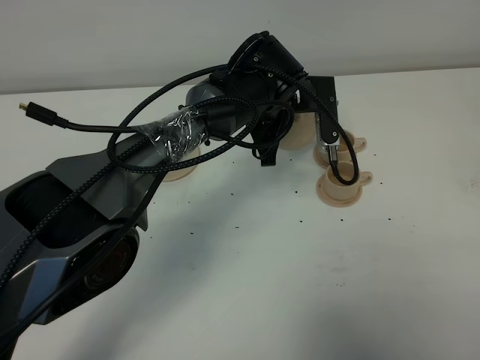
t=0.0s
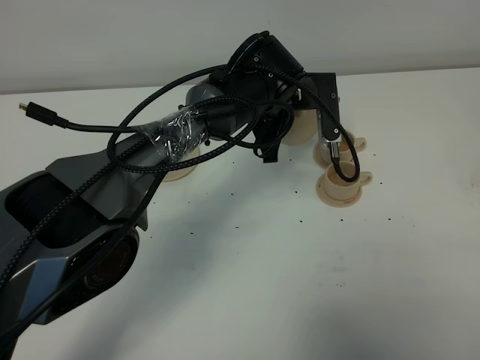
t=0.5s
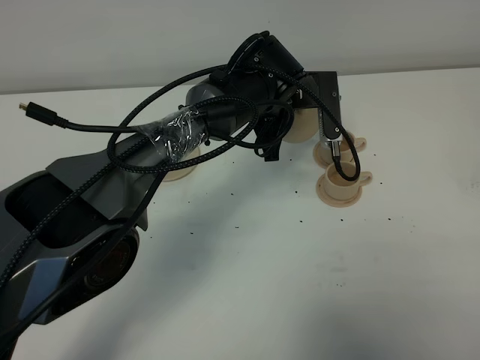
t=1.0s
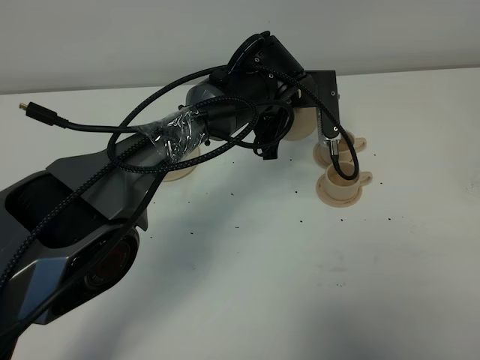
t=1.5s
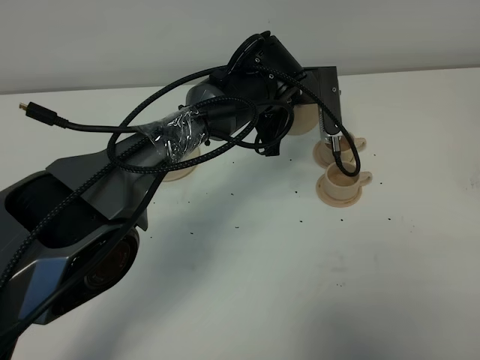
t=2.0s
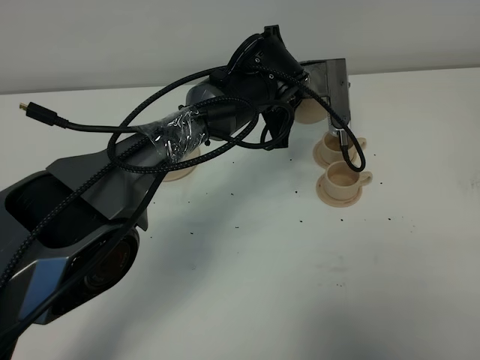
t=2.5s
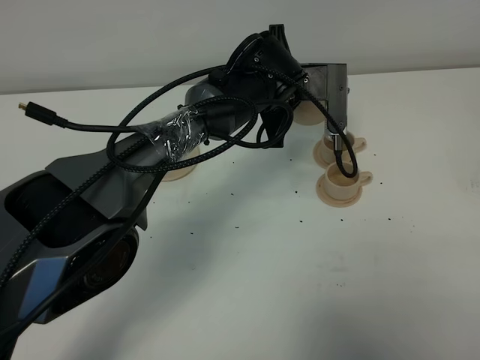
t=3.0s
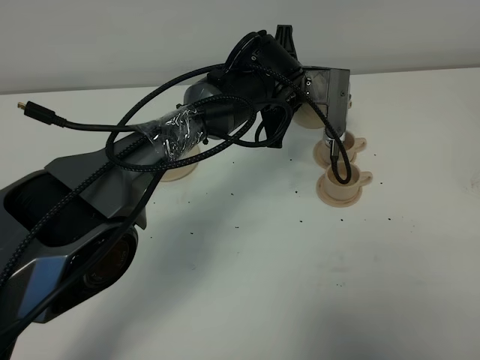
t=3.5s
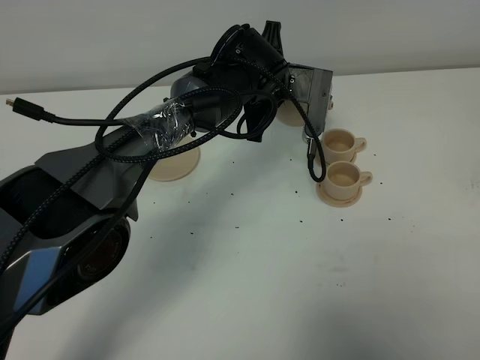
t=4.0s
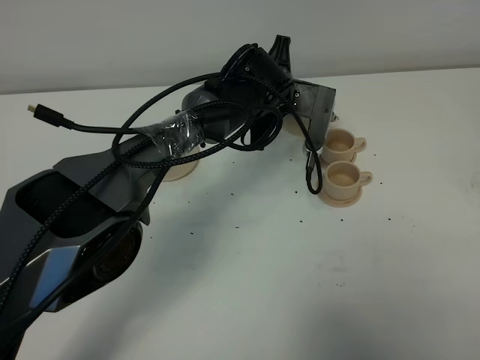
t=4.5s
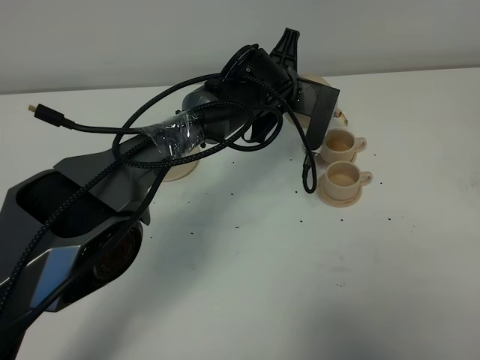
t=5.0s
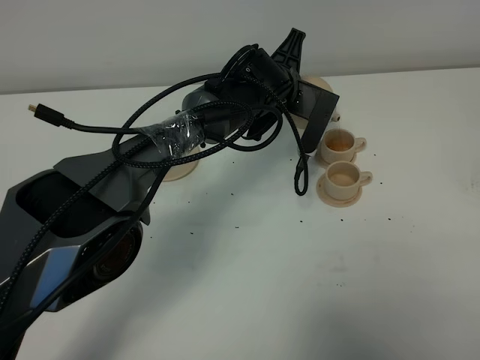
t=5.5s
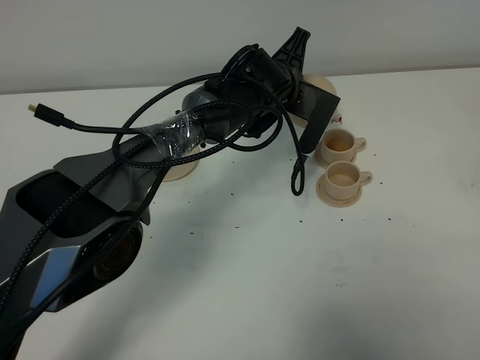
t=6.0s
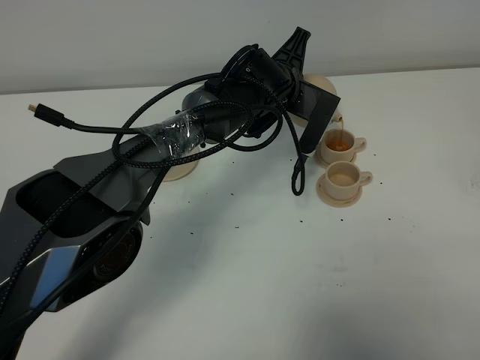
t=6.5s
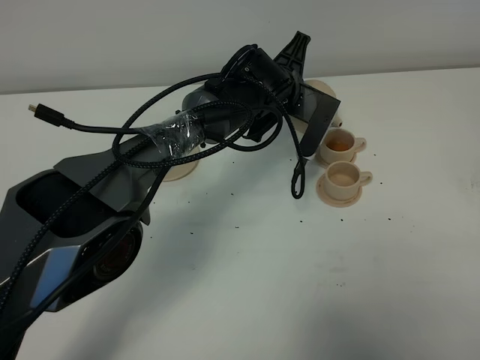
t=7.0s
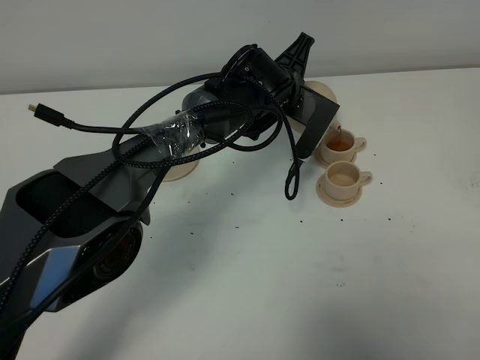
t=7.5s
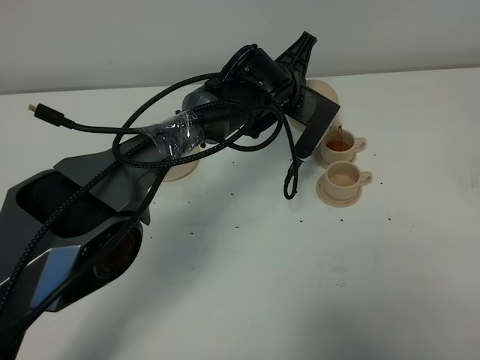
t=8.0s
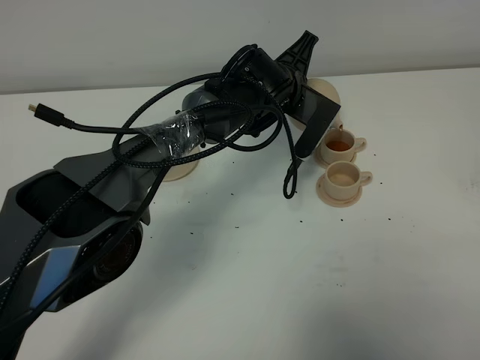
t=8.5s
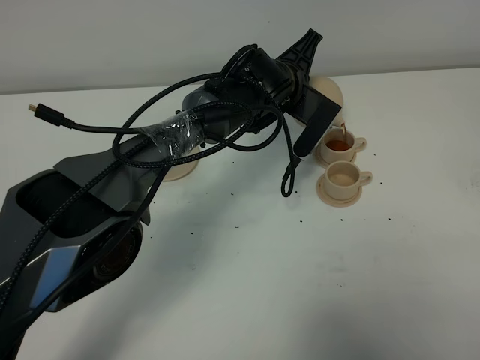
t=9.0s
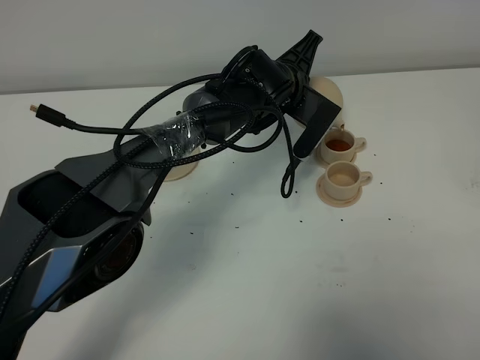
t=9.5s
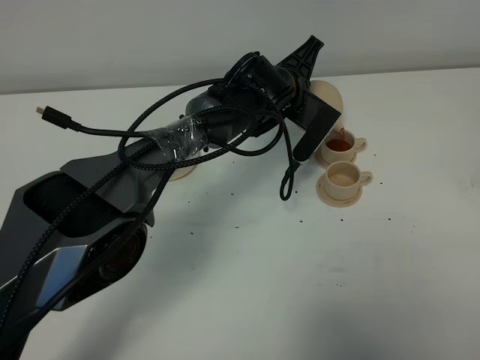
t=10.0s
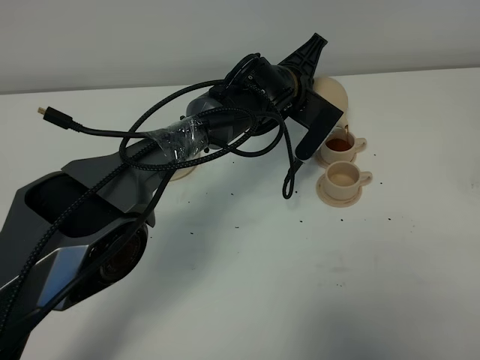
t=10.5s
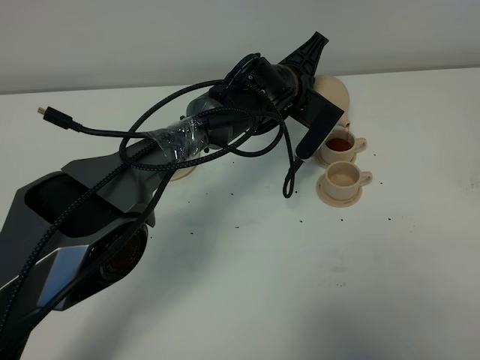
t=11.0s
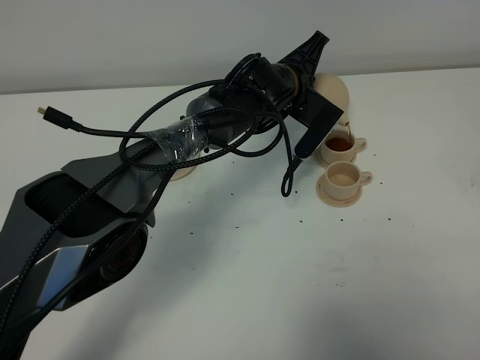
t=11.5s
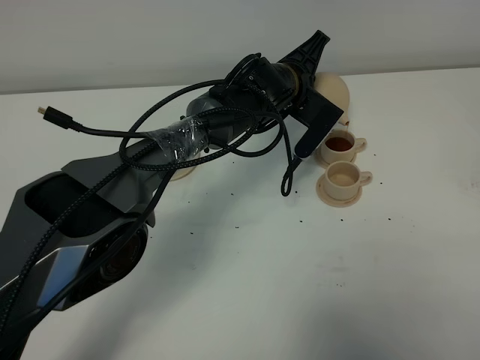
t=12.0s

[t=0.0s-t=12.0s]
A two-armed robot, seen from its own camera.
Task of the whole recording: grasp the brown teapot and pour the tea into the two brown teacups one by one, put the brown teapot back in its original place.
t=0.0s to t=4.0s: The grippers move only a little.
t=4.0s to t=6.0s: The grippers move only a little.
t=6.0s to t=10.0s: The grippers move only a little.
t=10.0s to t=12.0s: Both grippers stay about where they are.

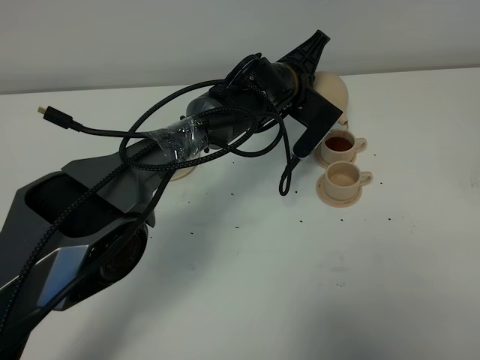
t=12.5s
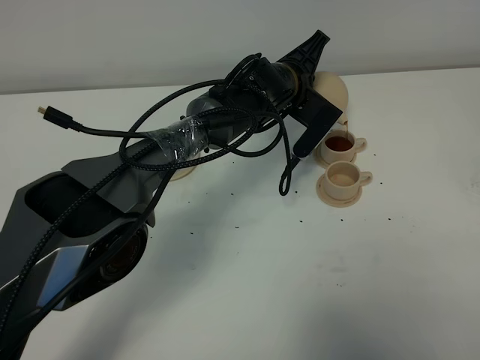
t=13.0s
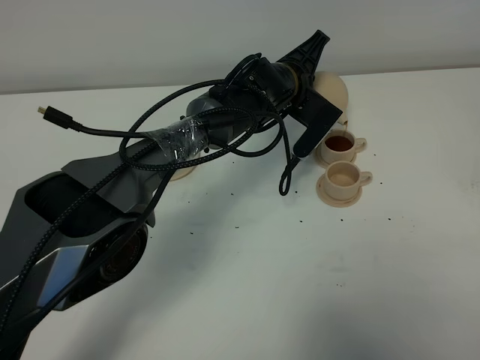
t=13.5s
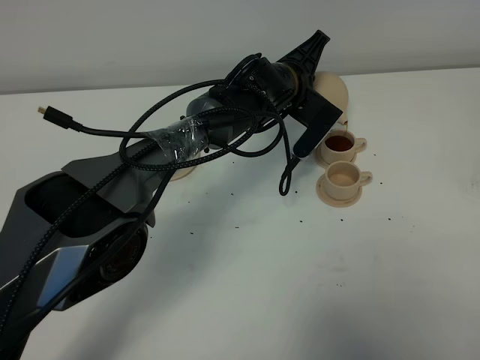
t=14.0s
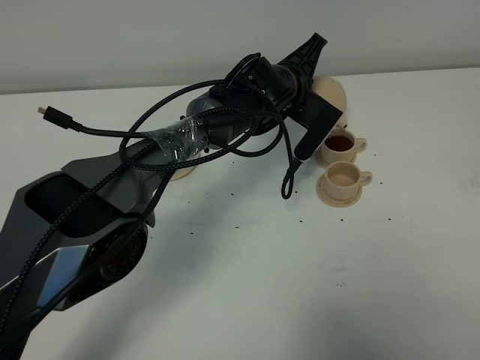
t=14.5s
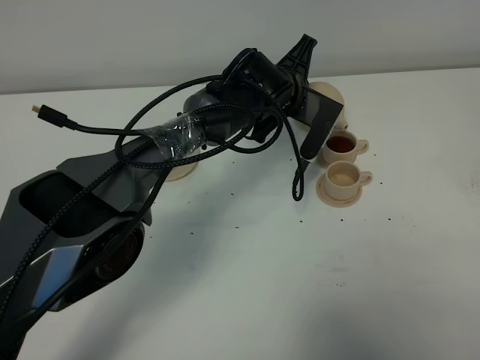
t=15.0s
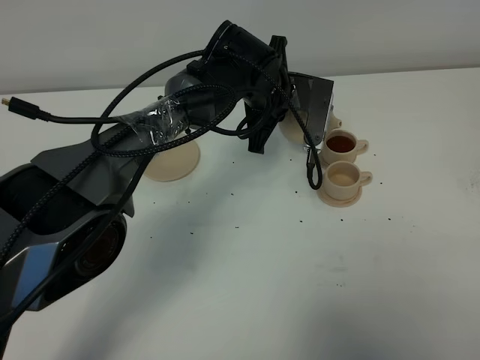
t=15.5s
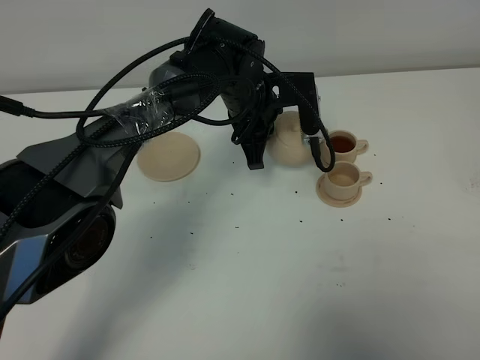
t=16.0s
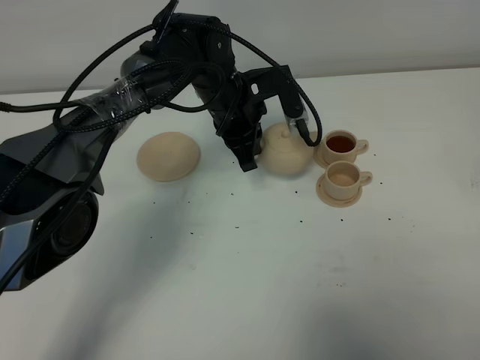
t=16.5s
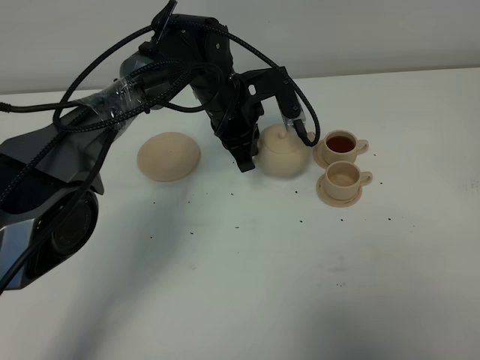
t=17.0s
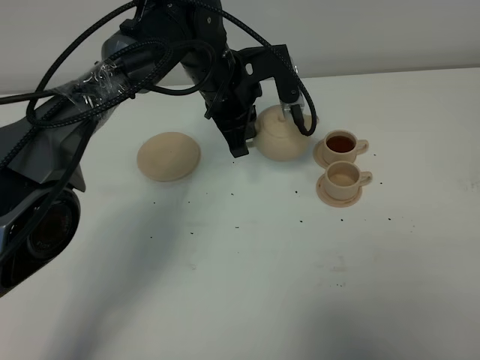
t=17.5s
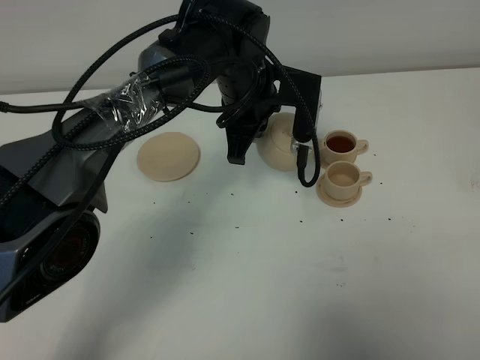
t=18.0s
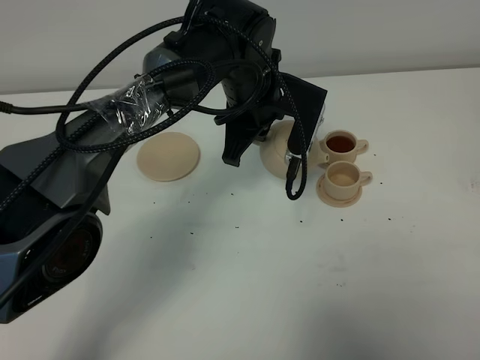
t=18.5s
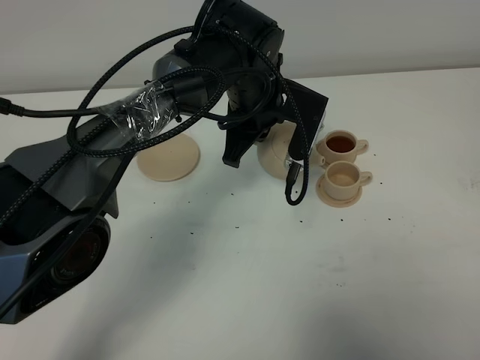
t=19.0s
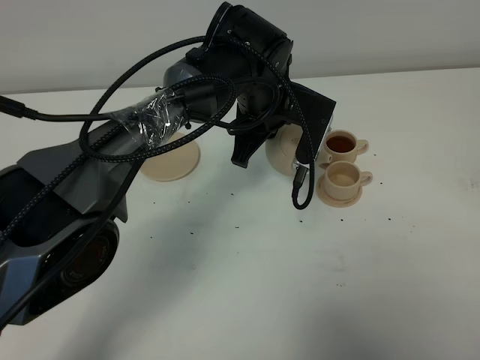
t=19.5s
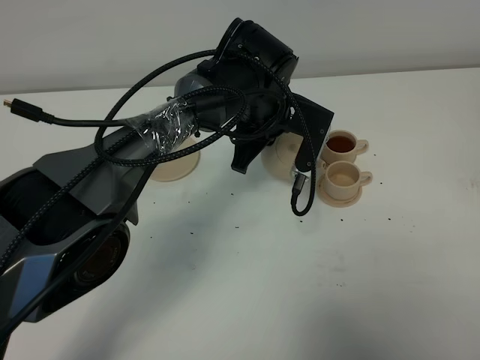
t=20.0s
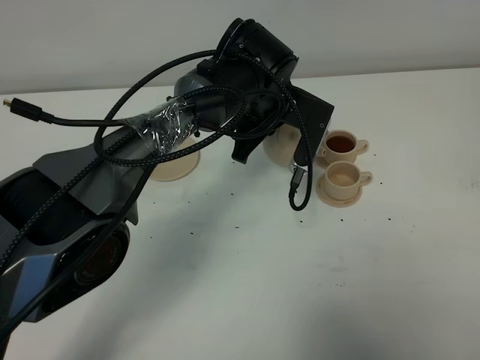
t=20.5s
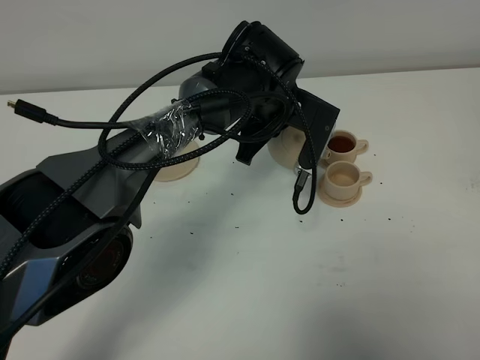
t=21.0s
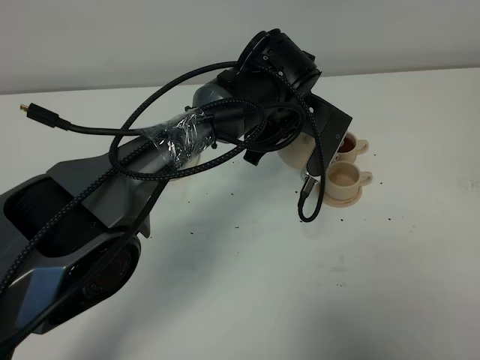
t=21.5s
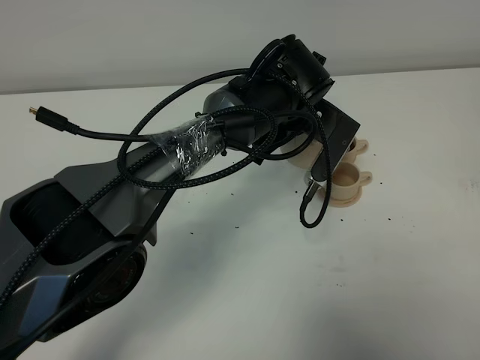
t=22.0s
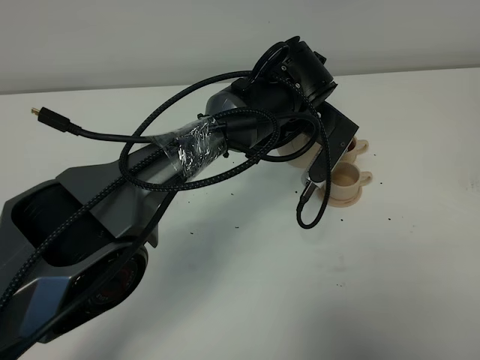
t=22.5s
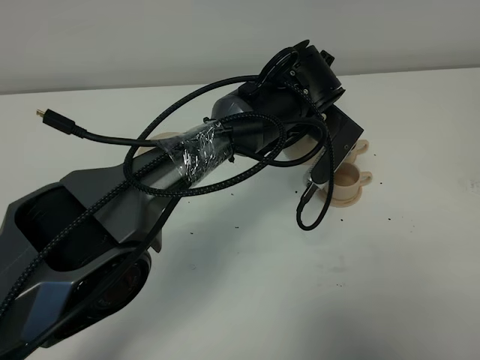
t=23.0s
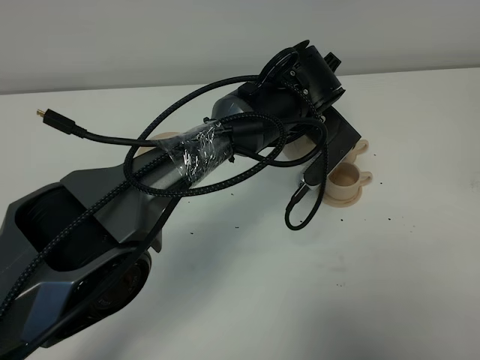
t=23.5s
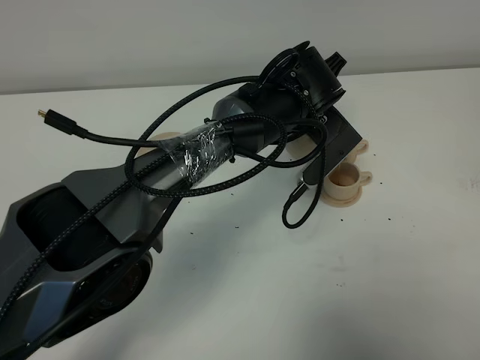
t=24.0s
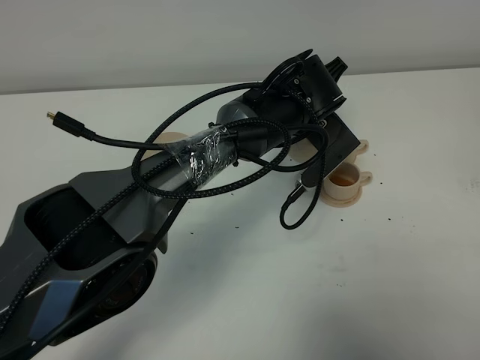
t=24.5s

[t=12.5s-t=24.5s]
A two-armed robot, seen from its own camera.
Task of the whole recording: grasp the brown teapot and pour the tea into the two brown teacups one by one, put the brown teapot back in its original place.
Step, t=12.5s to t=15.0s: Pour tea into the teacup with the left gripper.
t=12.5s to t=14.5s: Both grippers stay put.
t=14.5s to t=16.5s: The left gripper moves to the left, roughly 10 cm.
t=16.5s to t=18.5s: The left gripper shifts by approximately 5 cm.
t=22.5s to t=24.5s: There are only small adjustments of the grippers.

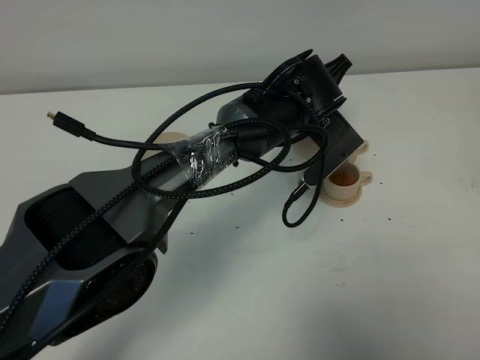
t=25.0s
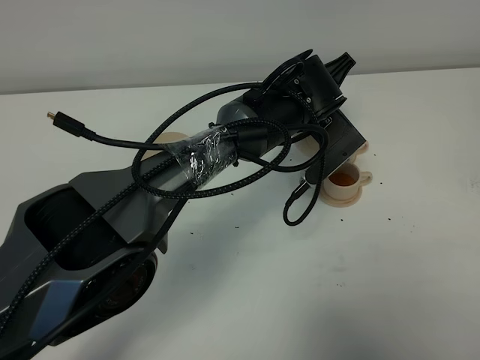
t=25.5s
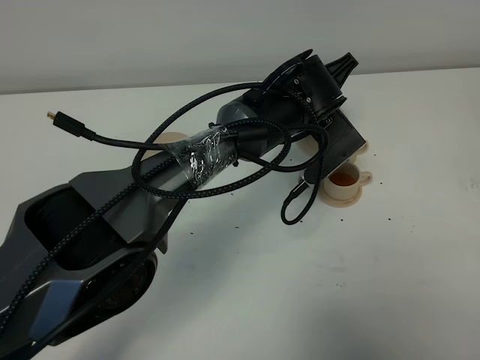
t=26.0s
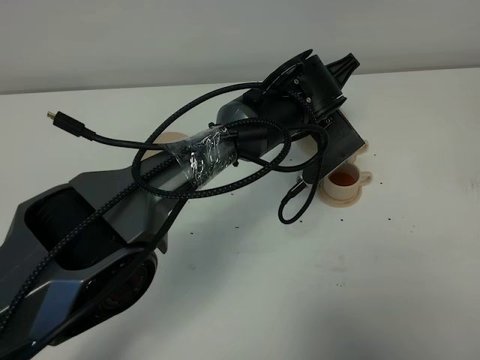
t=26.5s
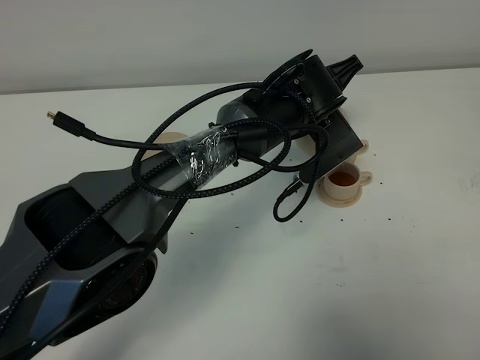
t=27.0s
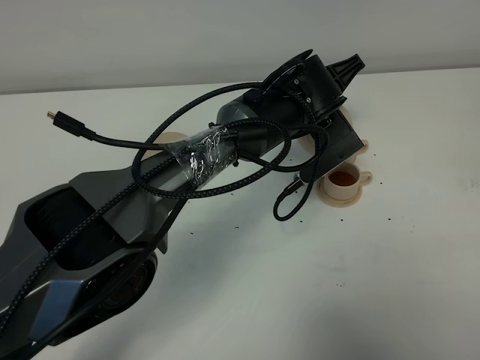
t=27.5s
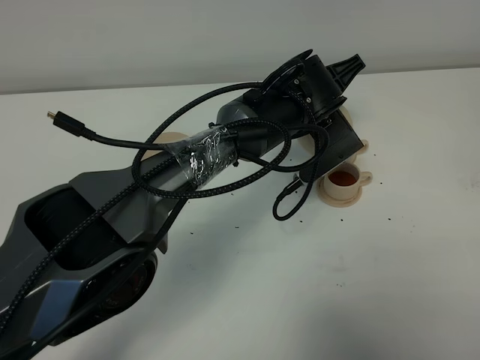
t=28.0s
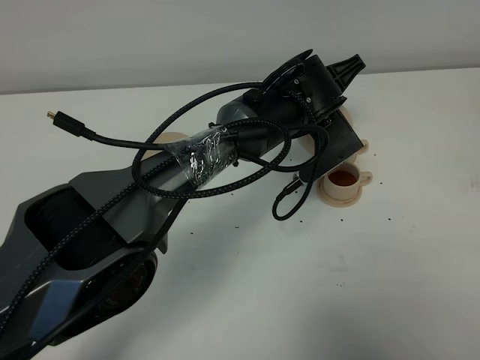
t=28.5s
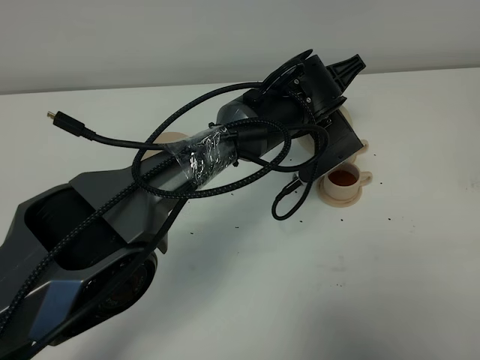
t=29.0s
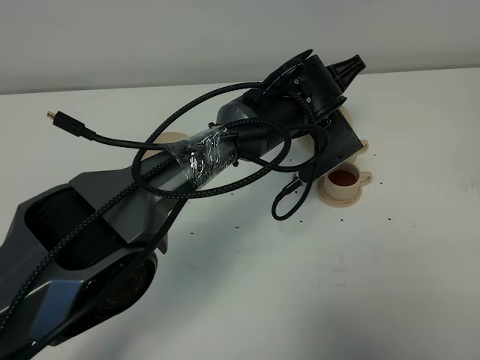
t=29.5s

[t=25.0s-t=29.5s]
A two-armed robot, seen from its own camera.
Task of the whole recording: grasp the brown teapot and pour the tea into the two brown teacups one by one, put the brown teapot back in its original place.
t=25.0s to t=27.0s: The grippers make only small movements.
t=27.0s to t=29.5s: Neither gripper changes place.
